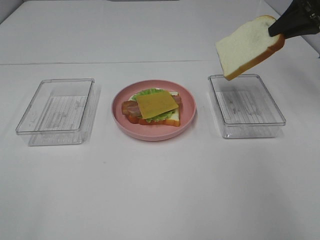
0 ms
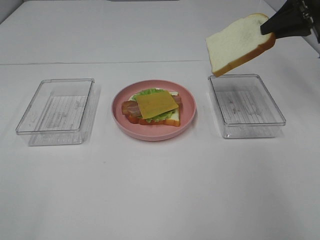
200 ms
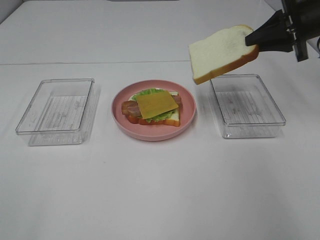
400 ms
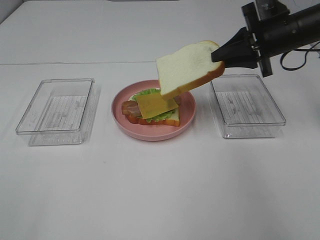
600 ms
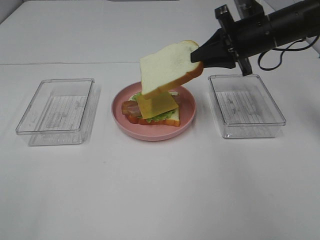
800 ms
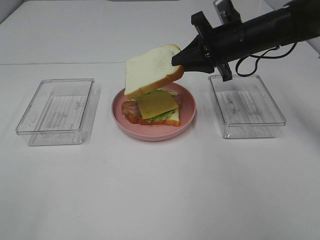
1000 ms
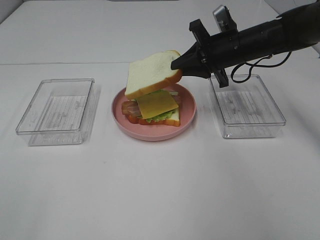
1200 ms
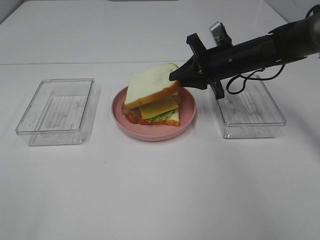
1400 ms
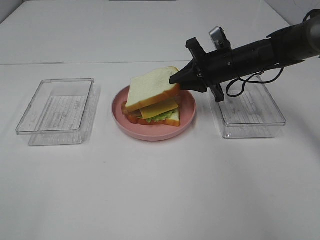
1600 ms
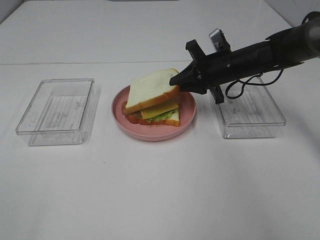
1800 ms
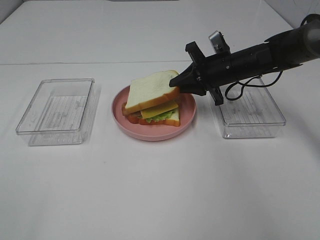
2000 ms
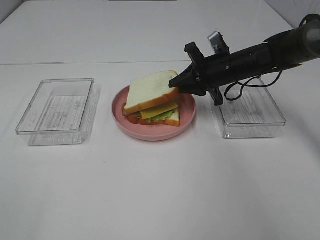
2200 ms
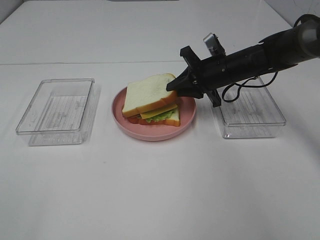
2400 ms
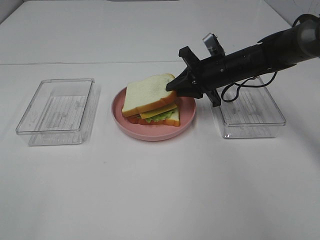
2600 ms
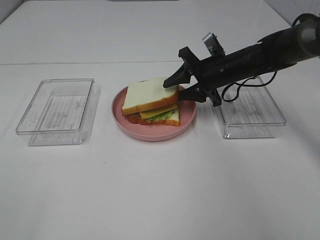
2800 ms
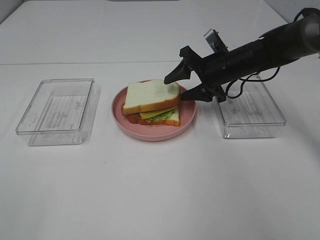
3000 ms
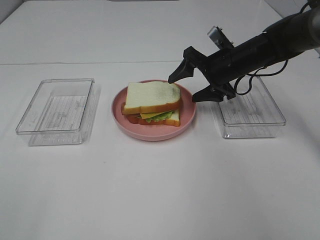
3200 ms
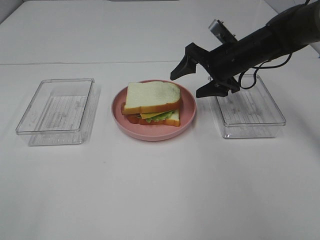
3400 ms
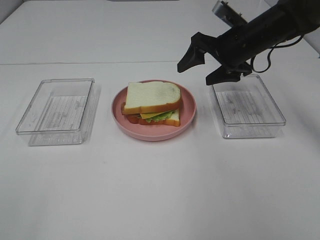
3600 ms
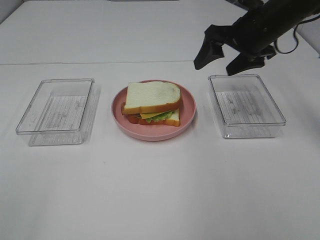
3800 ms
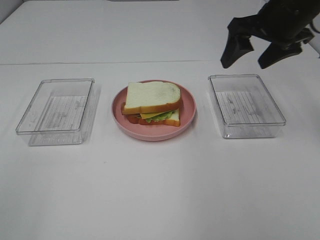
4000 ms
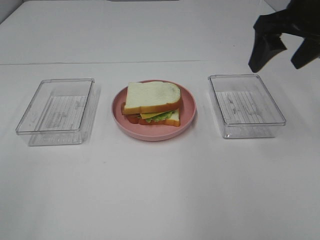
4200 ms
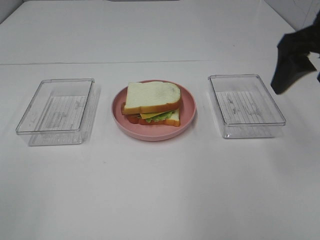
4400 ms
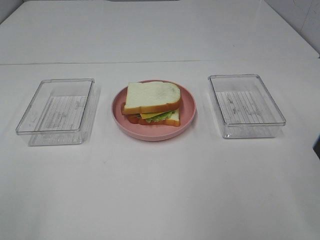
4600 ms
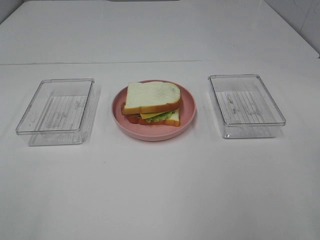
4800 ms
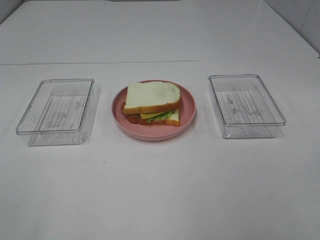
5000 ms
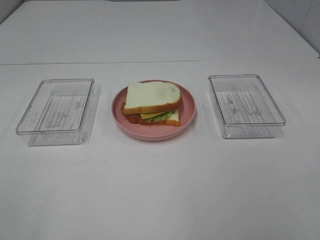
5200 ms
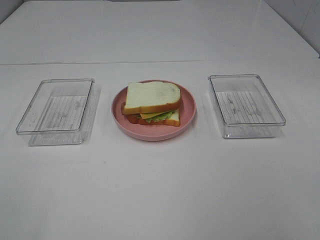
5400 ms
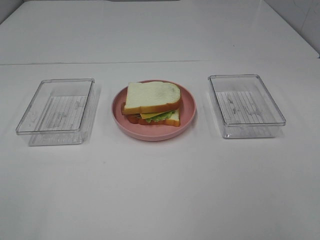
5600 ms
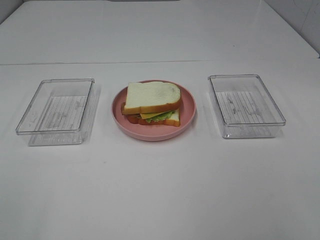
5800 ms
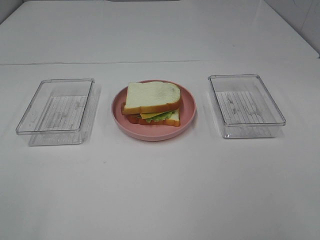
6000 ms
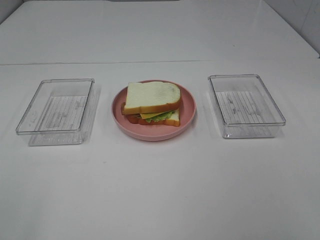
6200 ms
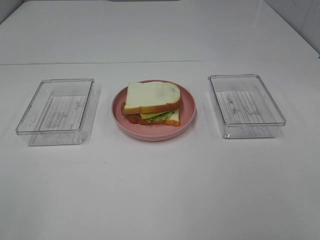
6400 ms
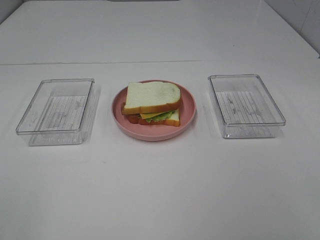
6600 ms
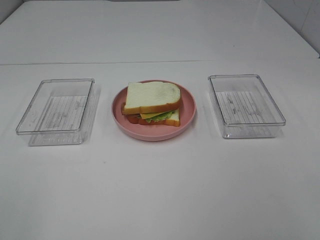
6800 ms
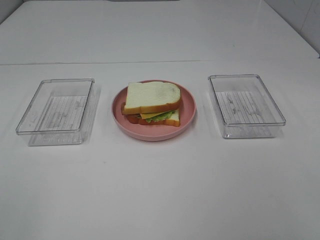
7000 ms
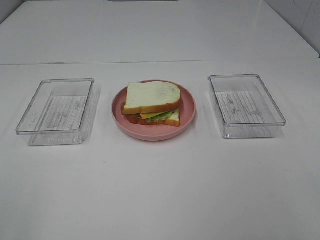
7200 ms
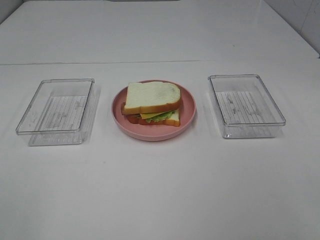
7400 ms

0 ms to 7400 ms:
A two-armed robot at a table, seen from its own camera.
Task of the whole recording: Make sandwiches.
Step, 0 ms to 3000 ms: Right hand:place the bread slice on the cheese slice.
0 ms to 1400 ms: The right gripper goes some 20 cm to the left and downward.
1400 ms to 3000 ms: The right gripper opens its fingers.
3000 ms to 4400 ms: The right gripper goes approximately 25 cm upward, backward and to the right.
4400 ms to 6000 ms: The right gripper is displaced backward by about 25 cm.

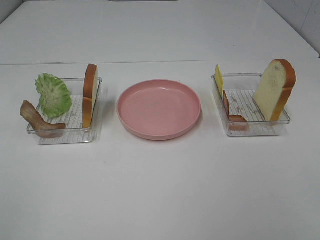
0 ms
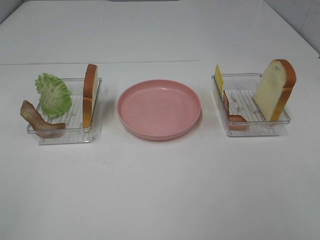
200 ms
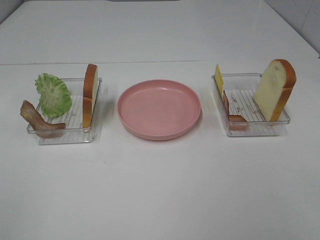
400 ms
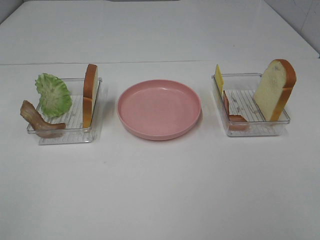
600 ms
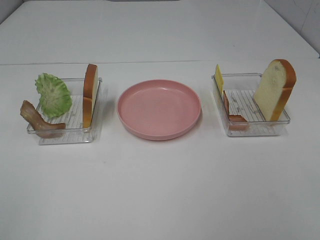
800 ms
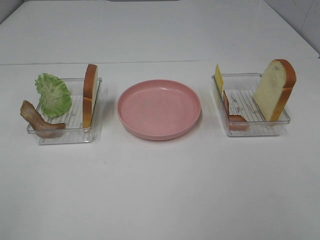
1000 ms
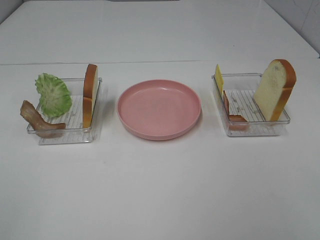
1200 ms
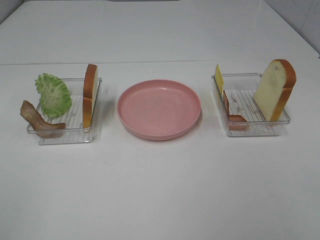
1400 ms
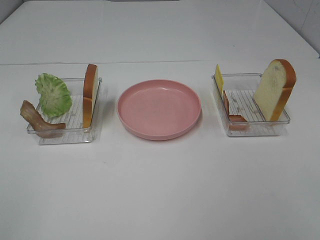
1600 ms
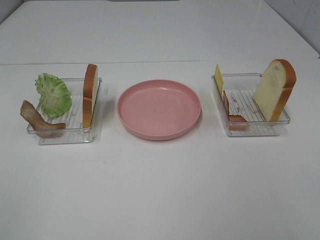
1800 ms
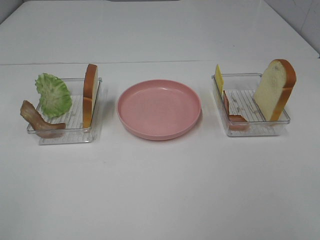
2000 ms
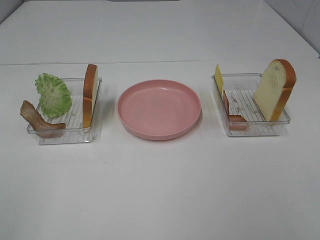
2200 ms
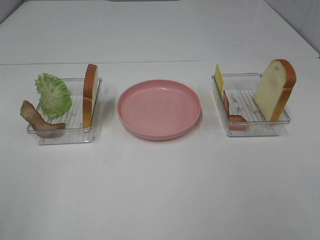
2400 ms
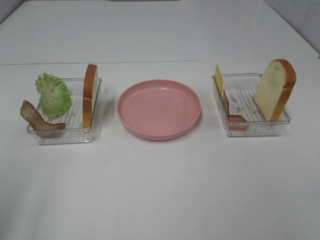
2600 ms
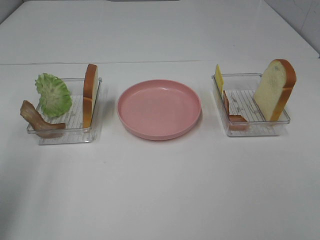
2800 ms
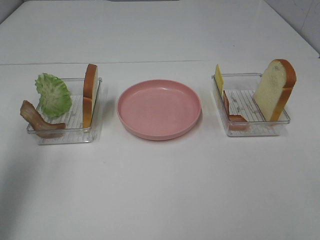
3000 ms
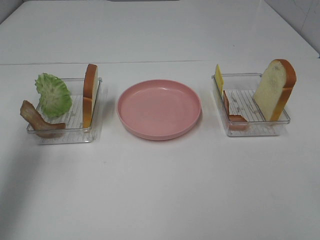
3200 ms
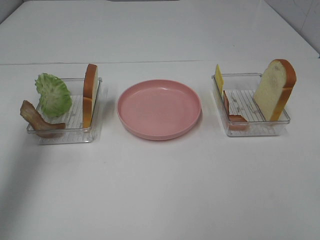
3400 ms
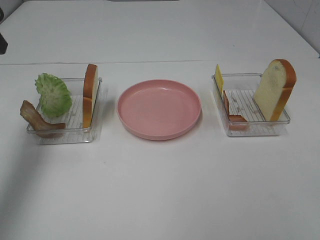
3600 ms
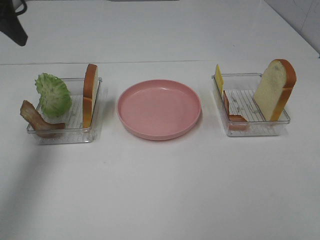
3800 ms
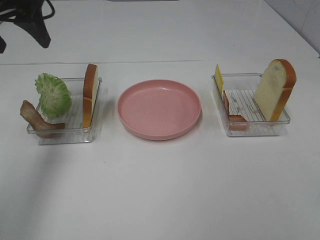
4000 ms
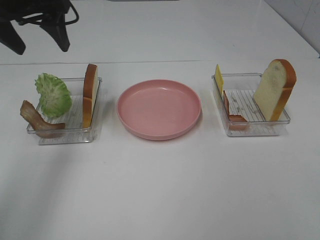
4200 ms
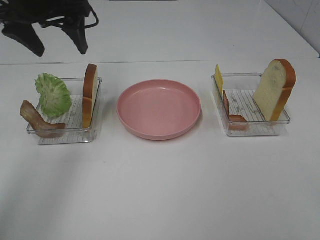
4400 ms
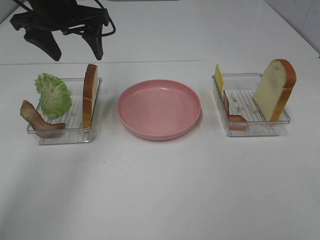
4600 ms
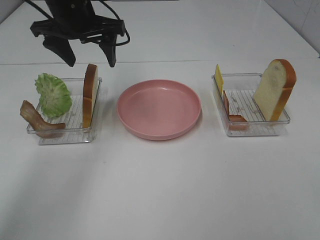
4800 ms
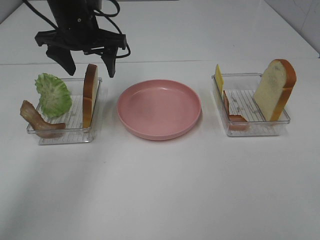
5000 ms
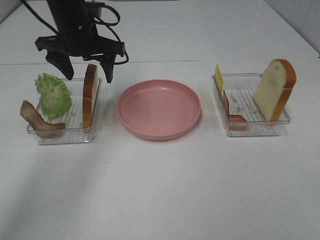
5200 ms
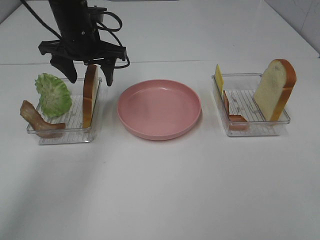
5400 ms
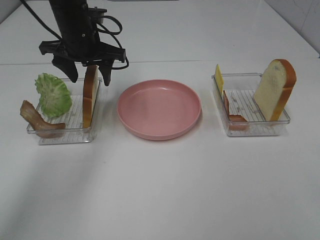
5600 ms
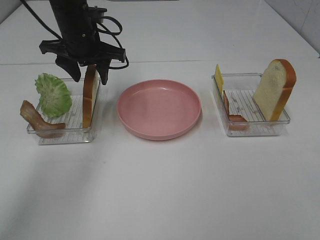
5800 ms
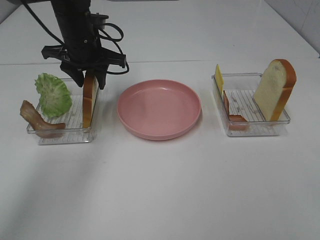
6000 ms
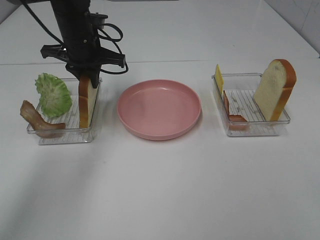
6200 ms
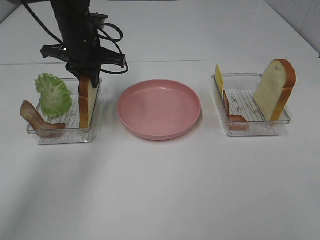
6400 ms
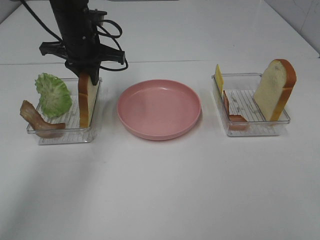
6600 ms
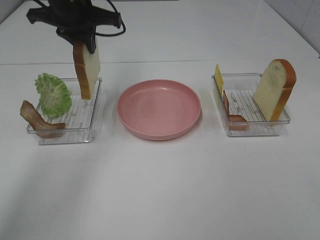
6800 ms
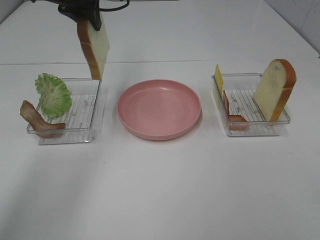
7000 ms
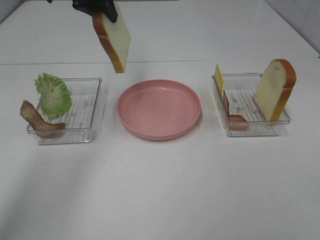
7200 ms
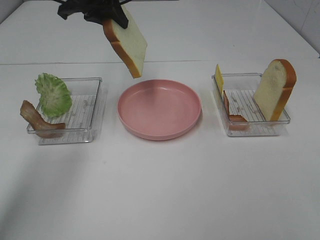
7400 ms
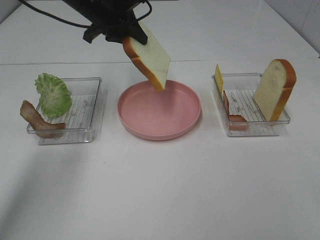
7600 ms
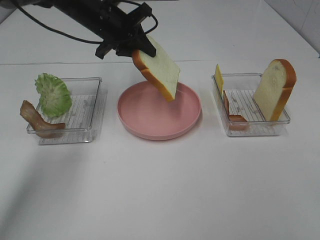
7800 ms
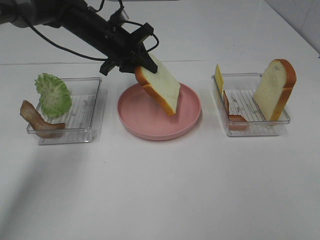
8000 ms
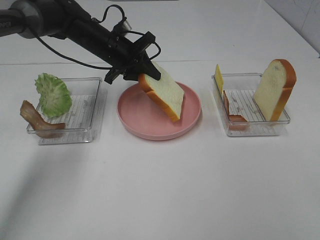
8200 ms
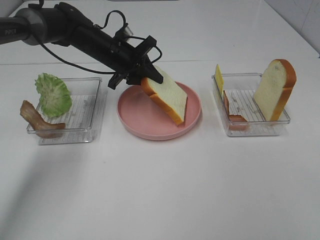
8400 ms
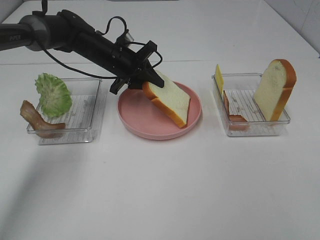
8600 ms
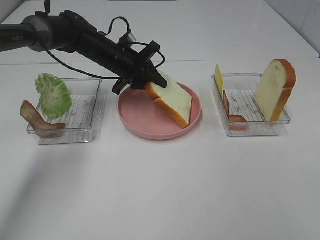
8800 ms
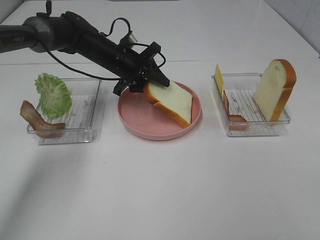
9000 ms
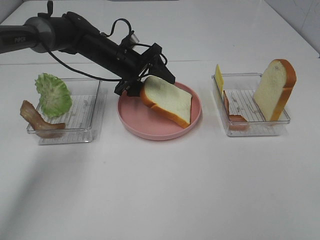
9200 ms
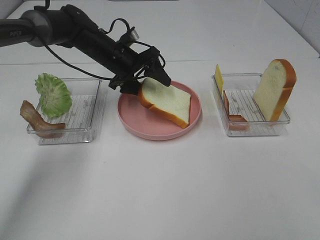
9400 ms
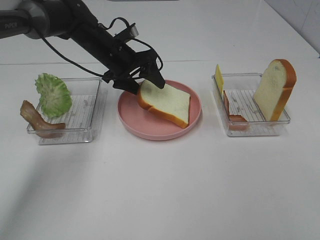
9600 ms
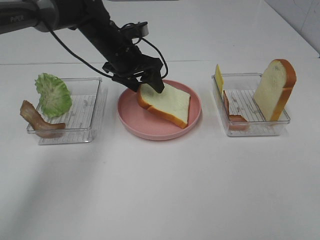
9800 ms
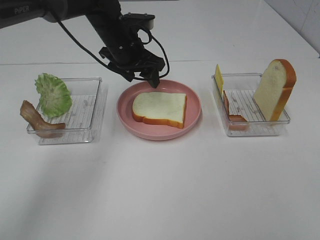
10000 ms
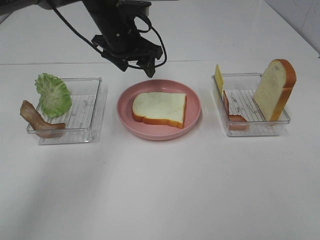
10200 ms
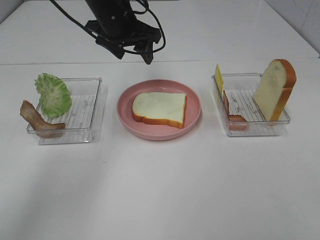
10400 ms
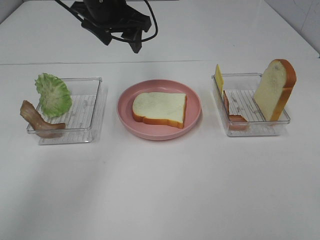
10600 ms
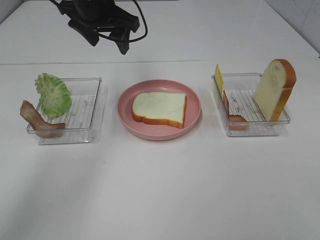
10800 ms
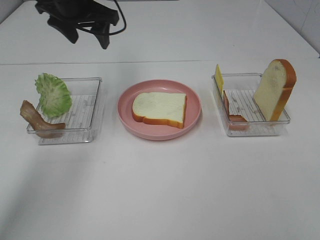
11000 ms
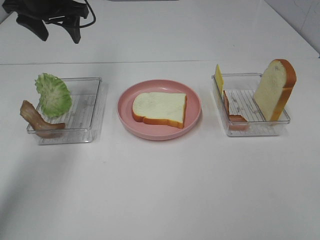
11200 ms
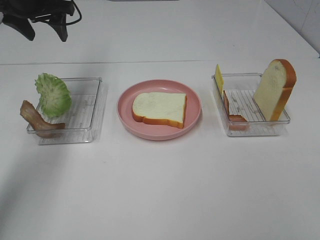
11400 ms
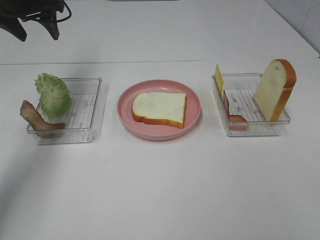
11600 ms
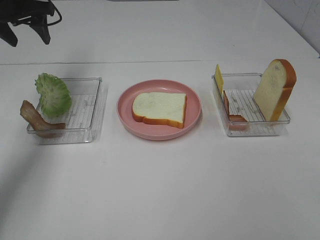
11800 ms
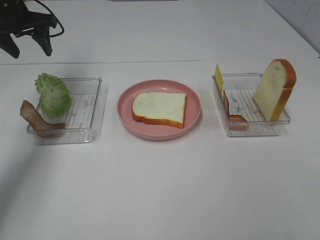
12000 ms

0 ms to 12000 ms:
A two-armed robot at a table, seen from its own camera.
Task of the whole recording: Make sandwiches.
Step, 0 ms to 6200 ms: Left hand:grab the bread slice.
Step, 6400 ms to 10200 ms: Left hand:place the bread slice on the plate.
0 ms to 1600 ms: The two grippers keep their place.
1600 ms to 3000 ms: The left gripper goes approximately 20 cm forward.
3000 ms to 4400 ms: The left gripper heads forward and to the right, covering about 25 cm.
4400 ms to 6000 ms: The left gripper is displaced downward by roughly 10 cm, and closes up.
7600 ms to 9000 ms: The left gripper travels downward by approximately 10 cm.
9000 ms to 10400 ms: The left gripper heads upward, covering some 10 cm, and opens up.
10400 ms to 12000 ms: The left gripper goes roughly 20 cm to the left.

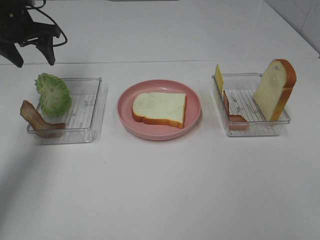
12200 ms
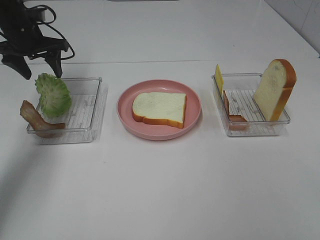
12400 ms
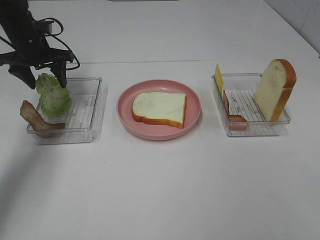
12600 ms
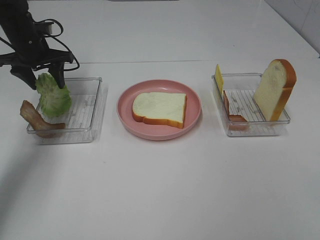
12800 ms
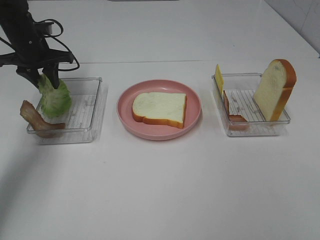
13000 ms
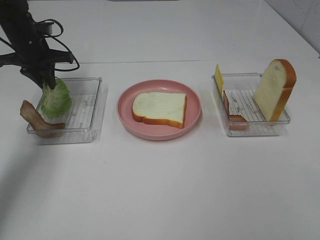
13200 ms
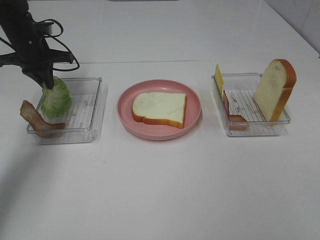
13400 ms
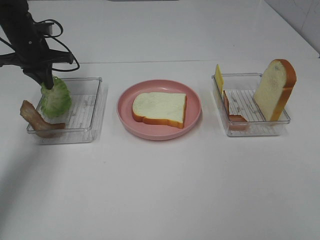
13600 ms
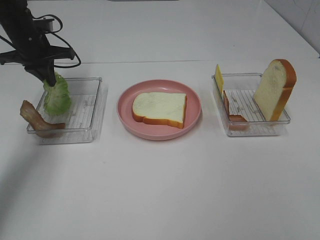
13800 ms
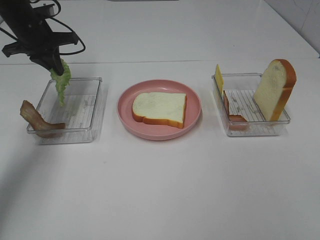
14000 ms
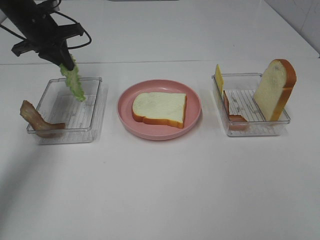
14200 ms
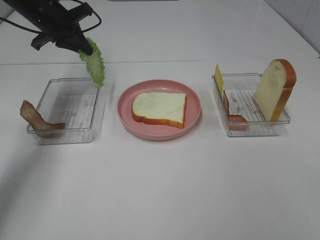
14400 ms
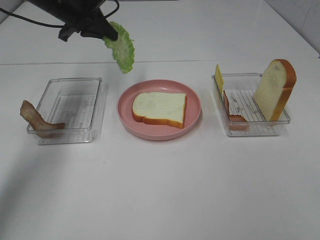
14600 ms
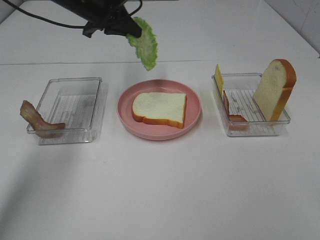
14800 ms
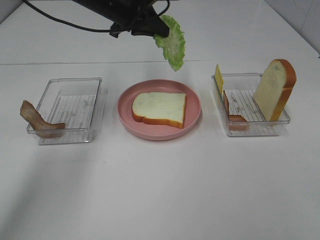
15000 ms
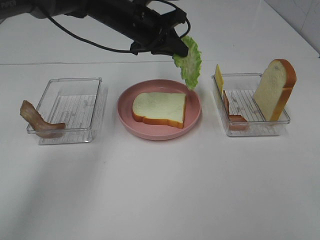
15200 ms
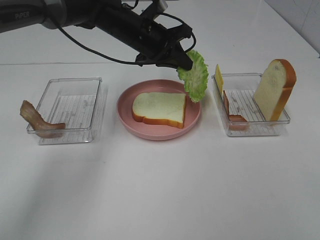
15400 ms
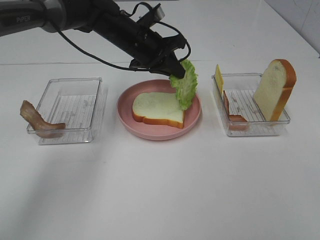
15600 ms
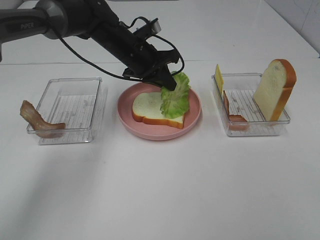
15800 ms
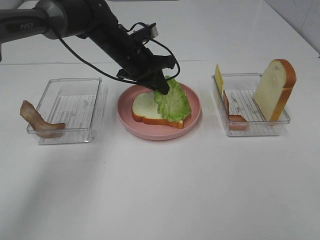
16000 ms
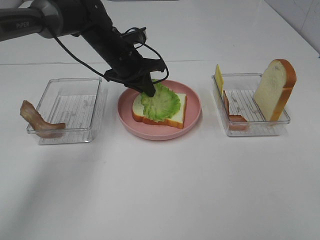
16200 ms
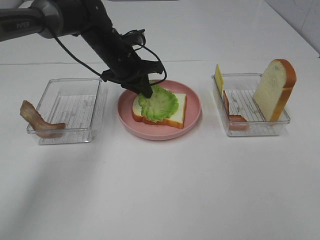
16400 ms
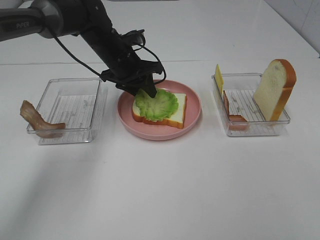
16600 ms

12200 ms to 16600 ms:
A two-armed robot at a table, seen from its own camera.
Task of the whole recording: Make sandwiches.
12200 ms to 13600 ms: The left gripper travels downward by about 5 cm, and closes its fingers.
13600 ms to 15200 ms: The left gripper travels to the right by roughly 20 cm.
15200 ms to 16600 ms: The left gripper travels downward by approximately 5 cm, and opens its fingers.
